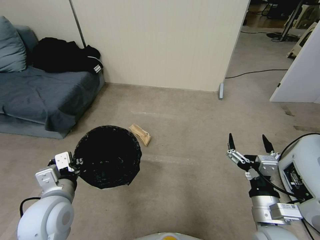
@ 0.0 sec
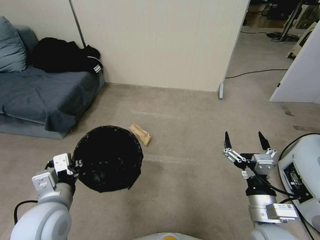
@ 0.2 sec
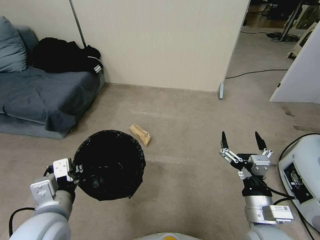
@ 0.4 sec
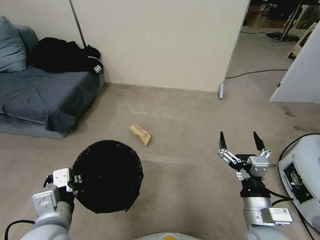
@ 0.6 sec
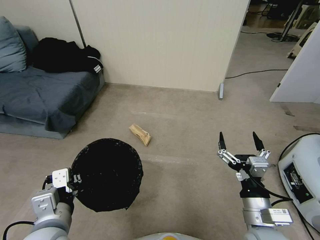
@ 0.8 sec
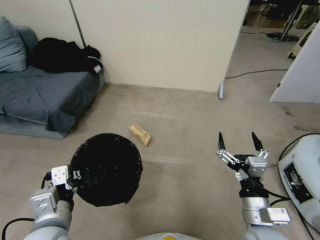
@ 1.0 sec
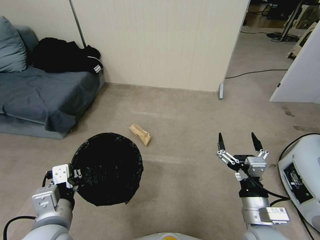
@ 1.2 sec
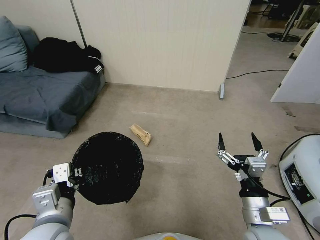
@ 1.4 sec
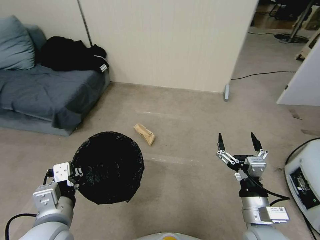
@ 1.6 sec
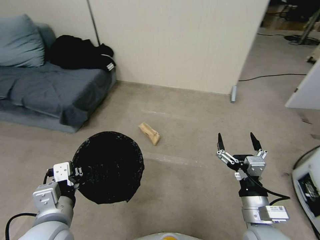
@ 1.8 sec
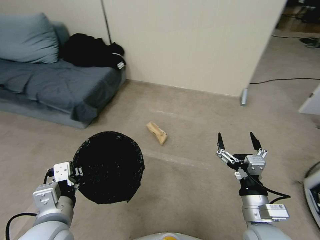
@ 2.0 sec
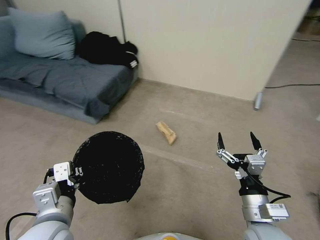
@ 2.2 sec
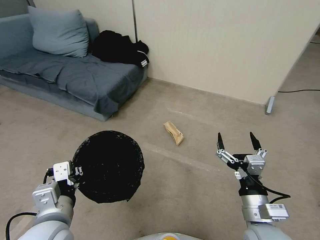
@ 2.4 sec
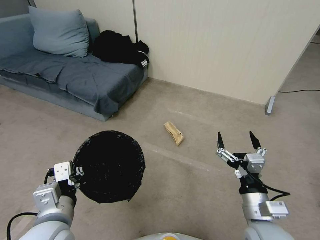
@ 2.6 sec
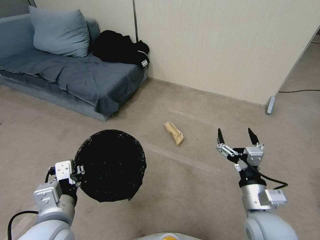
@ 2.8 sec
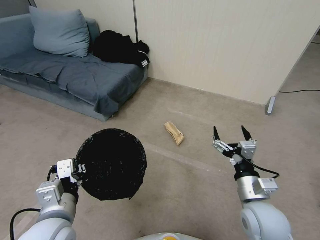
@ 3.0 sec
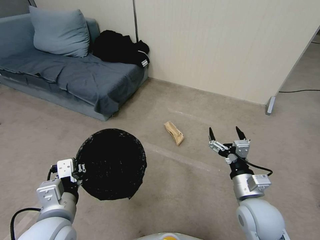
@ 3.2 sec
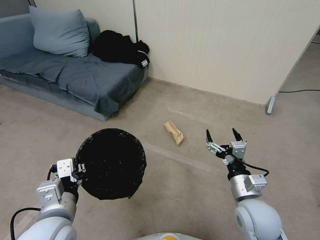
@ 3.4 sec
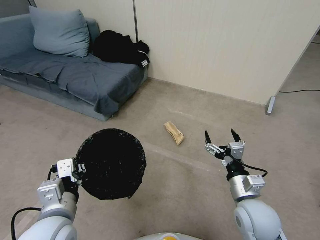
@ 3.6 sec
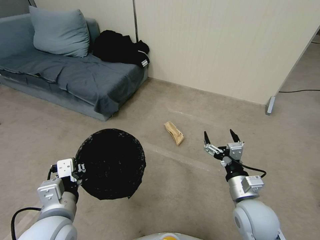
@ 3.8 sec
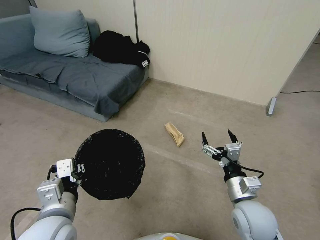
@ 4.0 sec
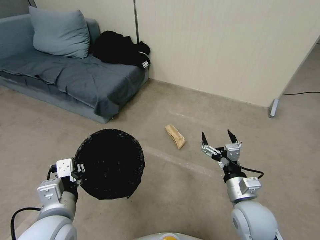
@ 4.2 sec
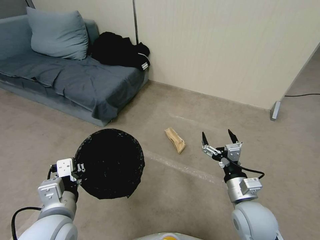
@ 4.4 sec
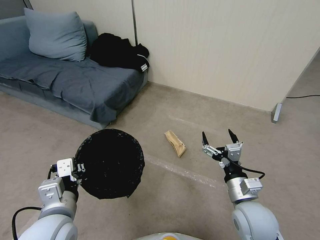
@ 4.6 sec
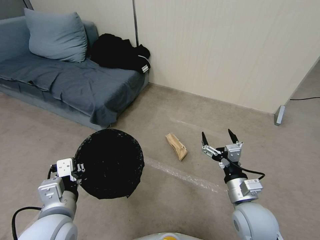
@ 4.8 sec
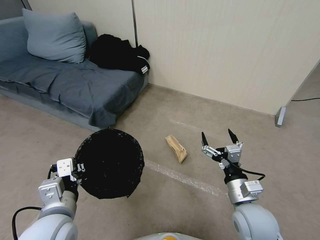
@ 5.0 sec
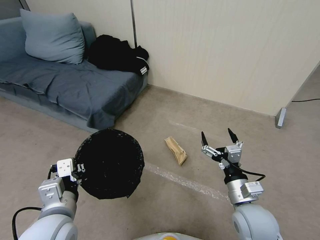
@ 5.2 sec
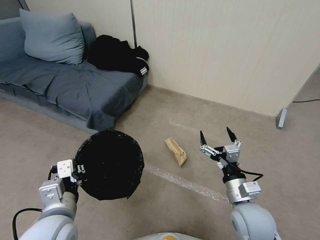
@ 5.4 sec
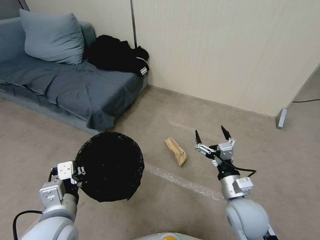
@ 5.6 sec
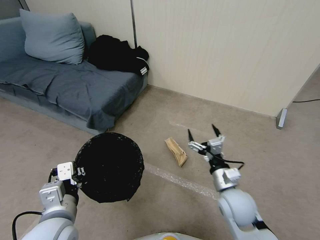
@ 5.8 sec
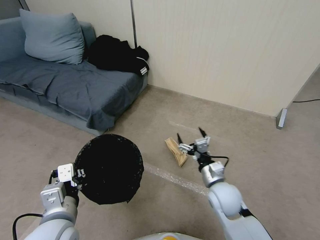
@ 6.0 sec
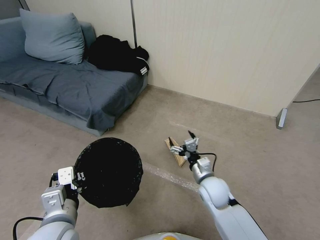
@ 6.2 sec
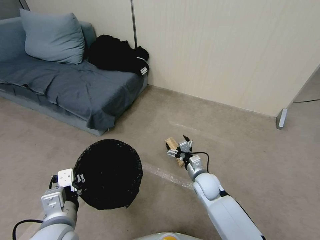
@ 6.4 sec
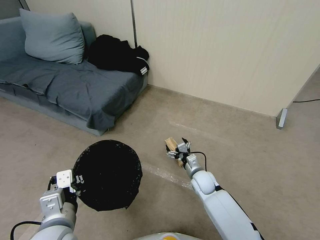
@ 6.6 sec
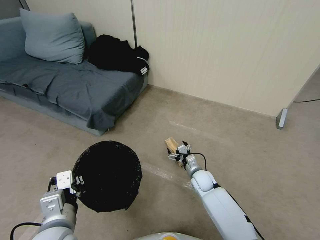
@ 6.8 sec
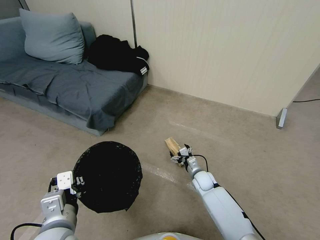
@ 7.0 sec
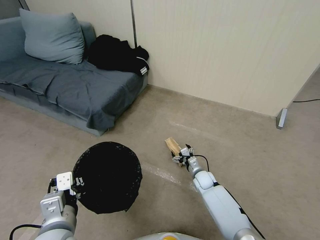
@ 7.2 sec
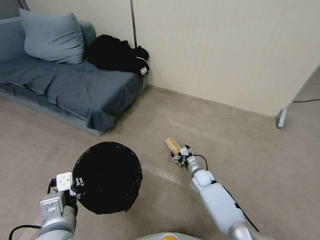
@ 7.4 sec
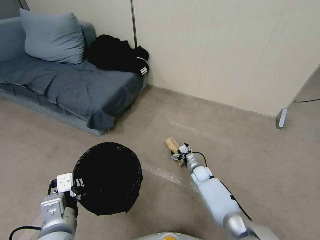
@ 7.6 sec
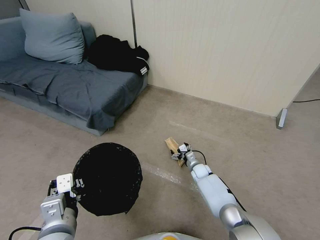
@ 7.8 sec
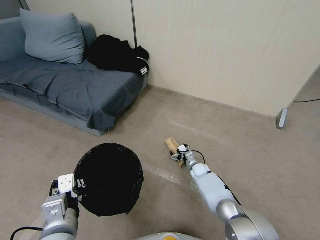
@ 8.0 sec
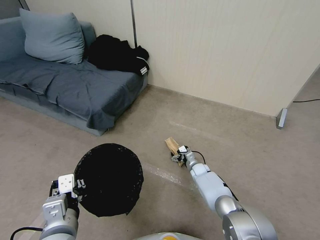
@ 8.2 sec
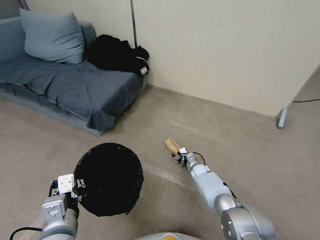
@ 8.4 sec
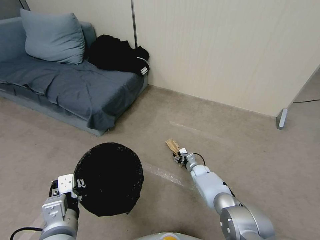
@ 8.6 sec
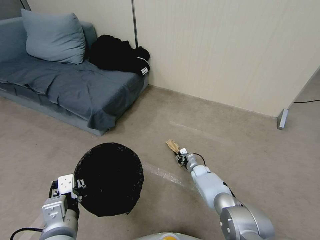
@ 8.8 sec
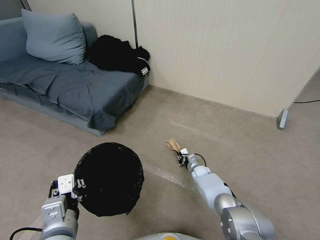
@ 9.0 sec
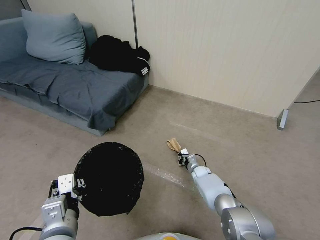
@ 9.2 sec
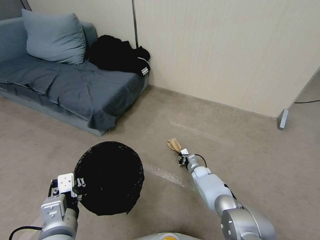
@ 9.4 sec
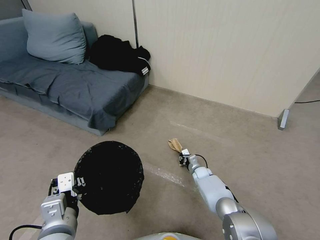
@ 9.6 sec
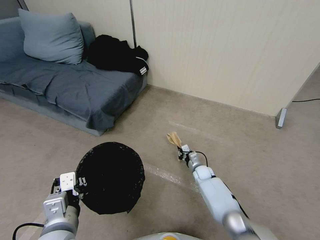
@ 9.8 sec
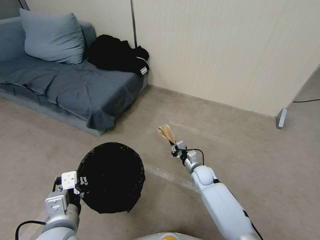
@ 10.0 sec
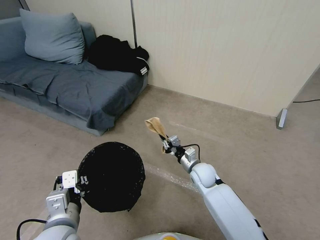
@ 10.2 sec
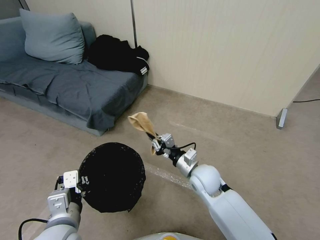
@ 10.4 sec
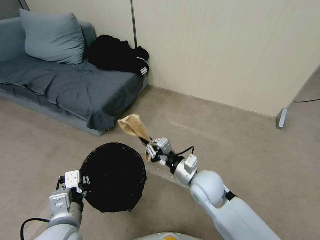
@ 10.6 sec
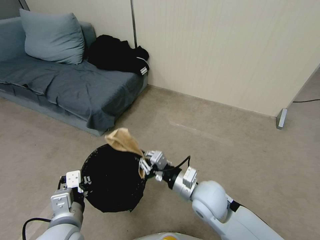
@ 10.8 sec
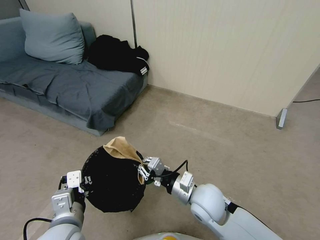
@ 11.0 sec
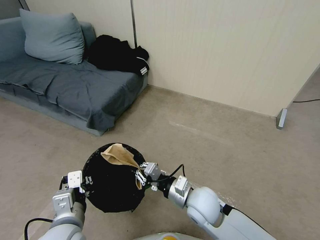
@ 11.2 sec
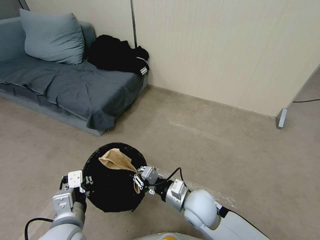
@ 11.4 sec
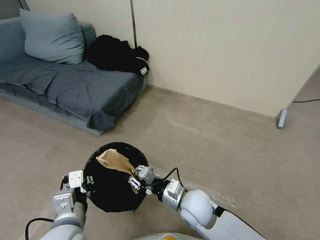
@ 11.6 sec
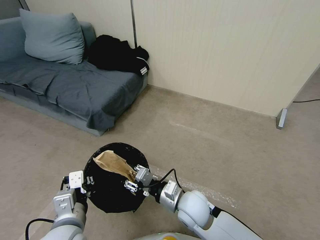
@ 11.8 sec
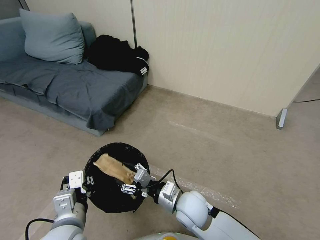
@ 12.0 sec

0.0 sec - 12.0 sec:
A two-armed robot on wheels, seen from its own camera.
Task of the whole recording: Pick up the trash bin, then pick up the garbage from the floor and place it into the trash bin.
0.0 sec - 1.6 sec: The left gripper shifts roughly 5 cm backward.
1.6 sec - 3.0 sec: The right gripper shifts roughly 5 cm forward.
3.0 sec - 4.4 sec: There are only small adjustments of the grippers.
4.4 sec - 6.0 sec: The right gripper is displaced forward by approximately 5 cm.
6.0 sec - 7.6 sec: The right gripper moves downward and forward, some 25 cm.
7.6 sec - 9.0 sec: The right gripper closes its fingers.
9.0 sec - 10.4 sec: The right gripper goes about 30 cm upward and backward.
10.4 sec - 12.0 sec: The right gripper moves backward and to the left, roughly 10 cm, and opens up.

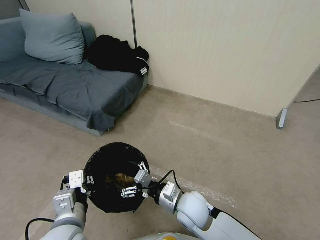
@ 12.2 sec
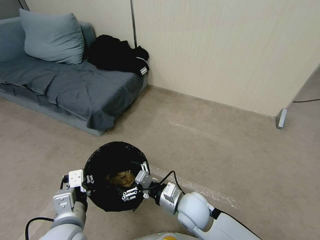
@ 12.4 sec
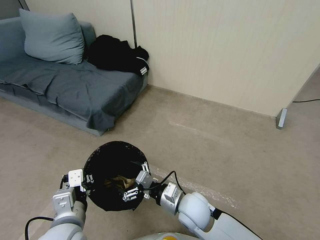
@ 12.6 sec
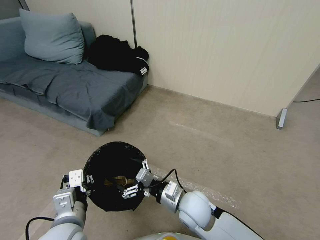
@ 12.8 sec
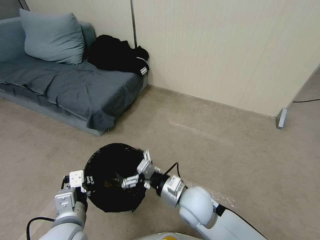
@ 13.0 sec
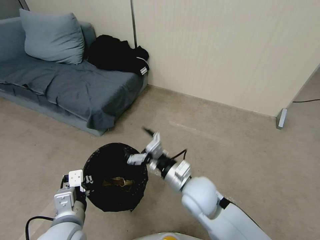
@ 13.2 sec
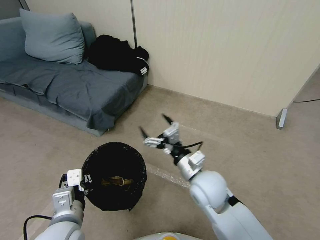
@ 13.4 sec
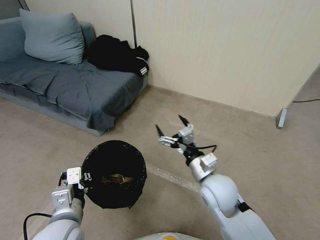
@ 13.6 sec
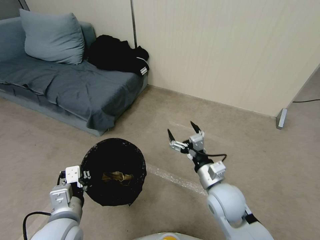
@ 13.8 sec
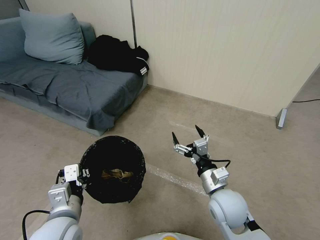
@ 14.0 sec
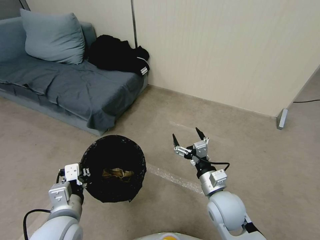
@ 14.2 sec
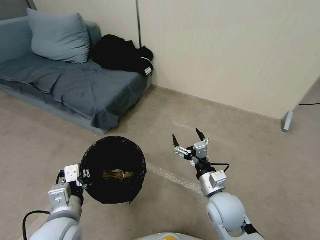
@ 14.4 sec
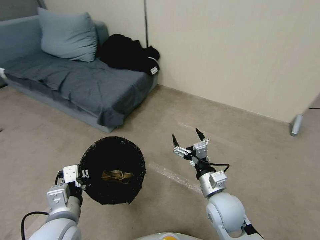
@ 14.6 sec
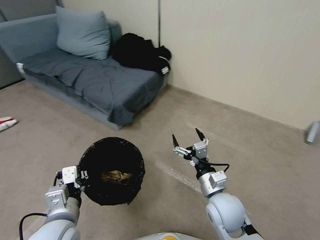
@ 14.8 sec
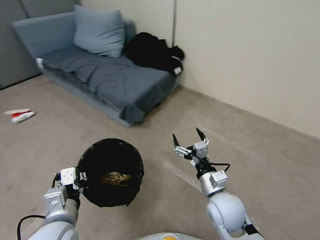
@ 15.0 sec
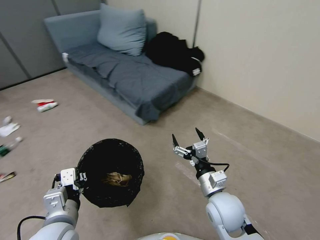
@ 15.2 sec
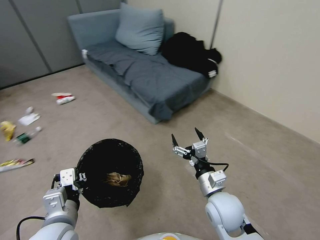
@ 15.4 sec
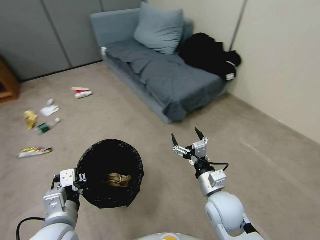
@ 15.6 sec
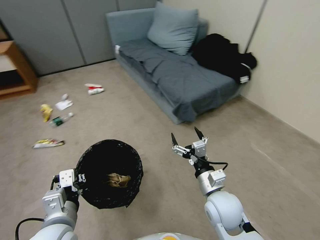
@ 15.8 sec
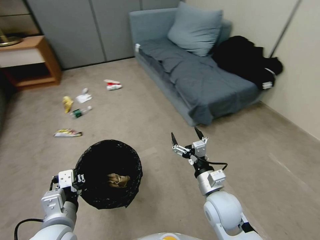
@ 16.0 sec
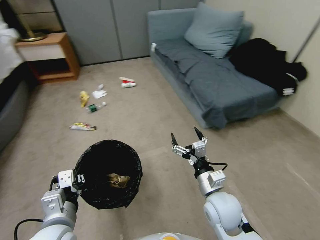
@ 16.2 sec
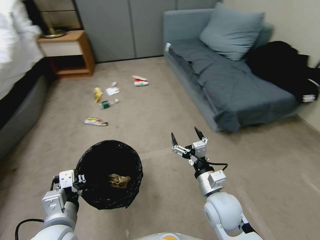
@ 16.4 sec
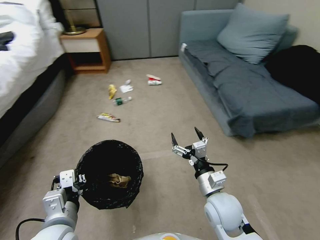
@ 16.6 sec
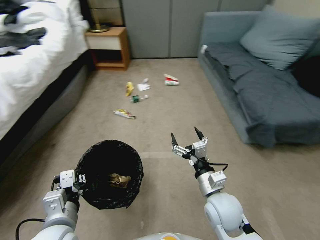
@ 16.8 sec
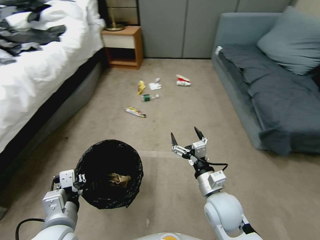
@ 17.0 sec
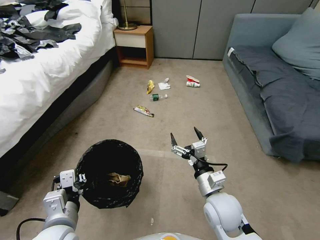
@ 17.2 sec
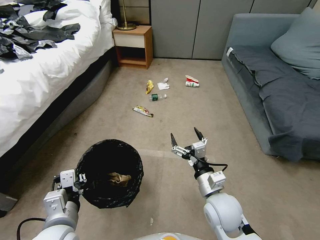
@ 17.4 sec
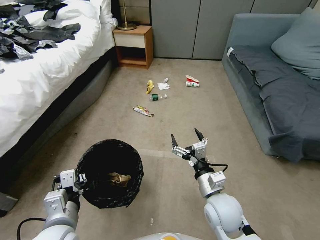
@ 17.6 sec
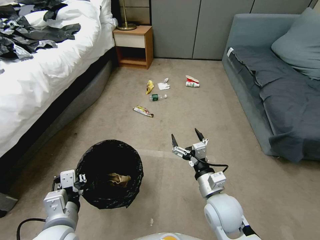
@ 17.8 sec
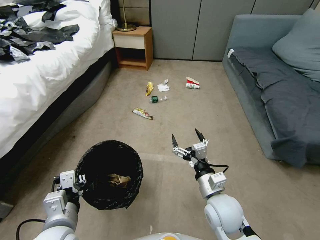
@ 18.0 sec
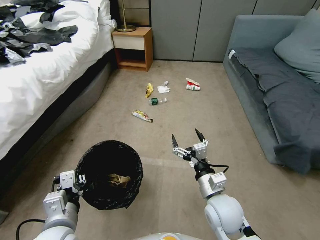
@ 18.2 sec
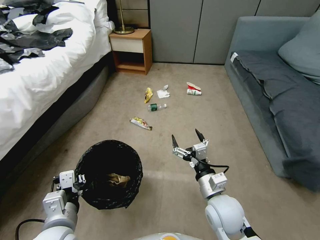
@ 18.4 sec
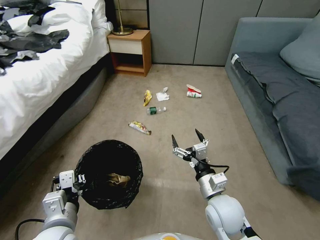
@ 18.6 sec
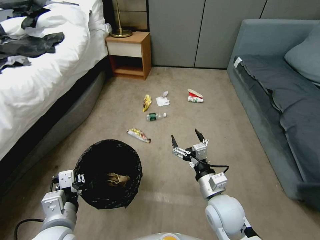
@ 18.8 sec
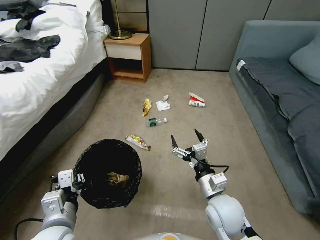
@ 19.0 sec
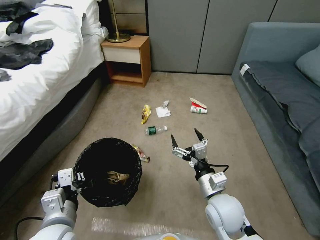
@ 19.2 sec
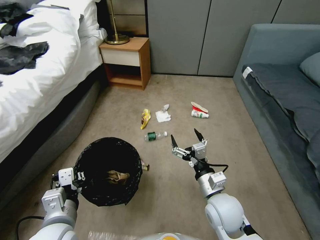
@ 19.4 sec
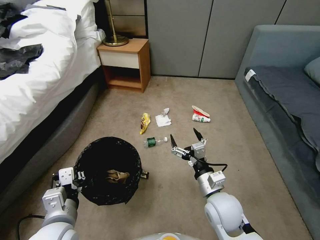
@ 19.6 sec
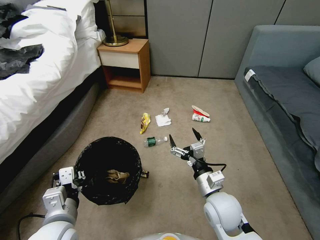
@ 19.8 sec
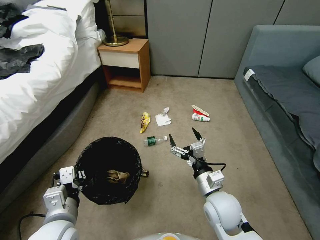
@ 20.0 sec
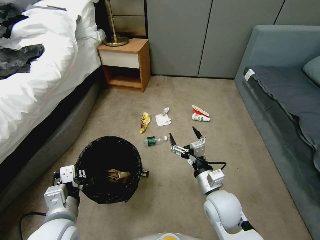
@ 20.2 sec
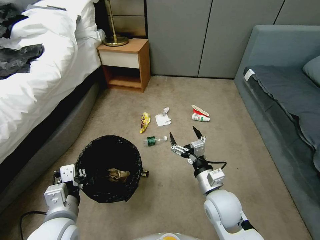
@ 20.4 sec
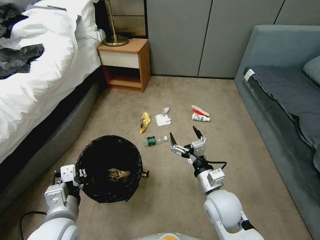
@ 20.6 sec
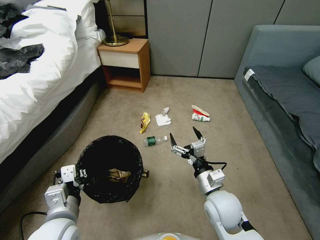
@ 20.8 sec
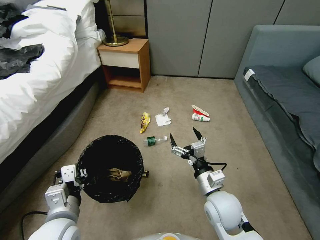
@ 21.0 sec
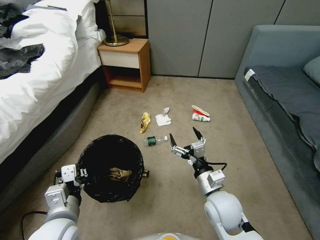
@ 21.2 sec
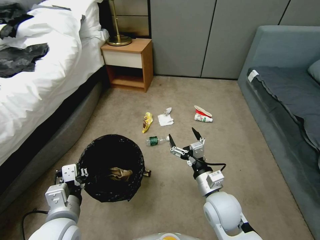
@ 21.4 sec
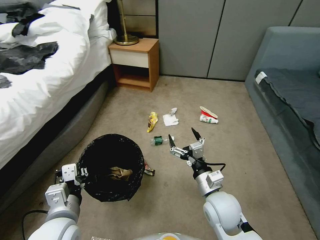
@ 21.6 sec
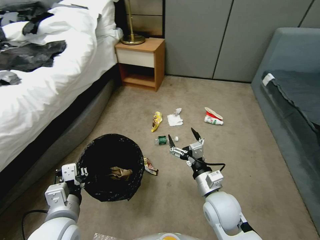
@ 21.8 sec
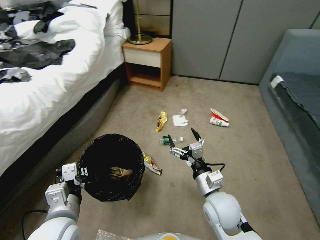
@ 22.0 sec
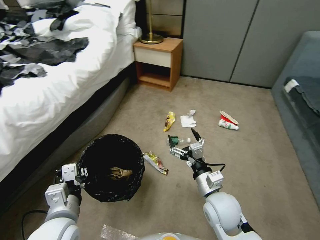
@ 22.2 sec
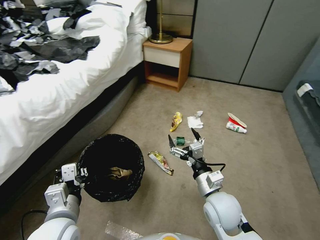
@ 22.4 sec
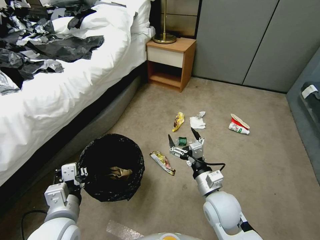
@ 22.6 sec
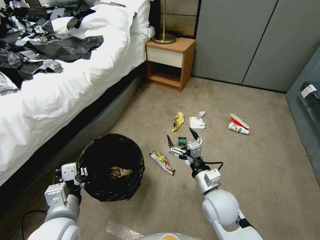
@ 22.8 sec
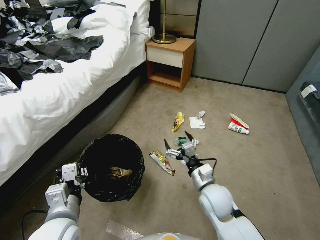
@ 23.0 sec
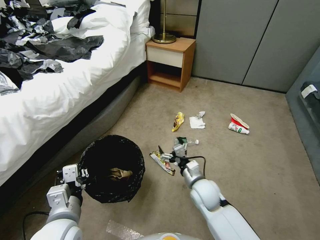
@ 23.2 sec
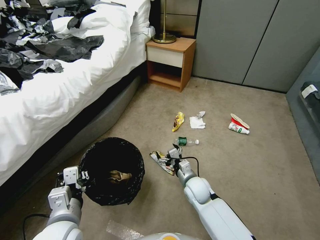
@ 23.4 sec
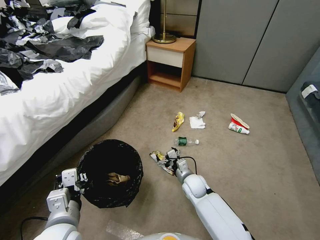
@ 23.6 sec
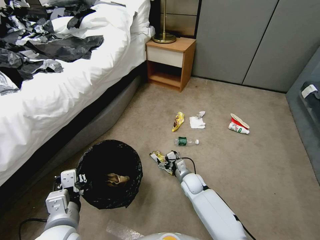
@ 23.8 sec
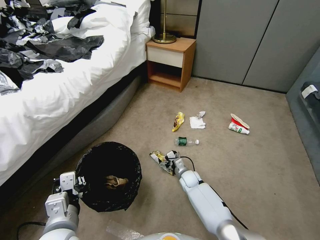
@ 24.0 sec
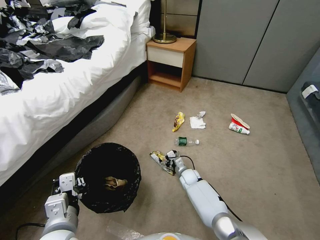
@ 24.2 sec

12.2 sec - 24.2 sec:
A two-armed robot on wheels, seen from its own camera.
Task of the whole recording: Pick up the trash bin, then pick up the garbage from the floor and place it into the trash bin.
12.2 sec - 13.8 sec: The right gripper moves to the right and upward, approximately 10 cm.
19.8 sec - 21.2 sec: Neither gripper changes place.
22.6 sec - 24.2 sec: The right gripper shifts about 30 cm downward and forward.
